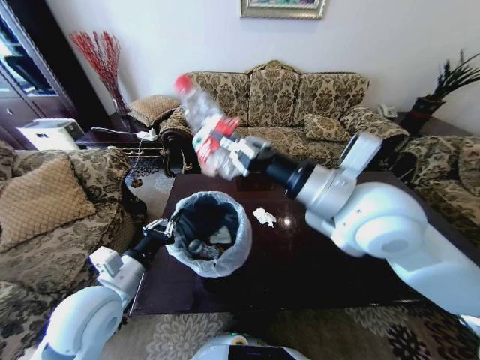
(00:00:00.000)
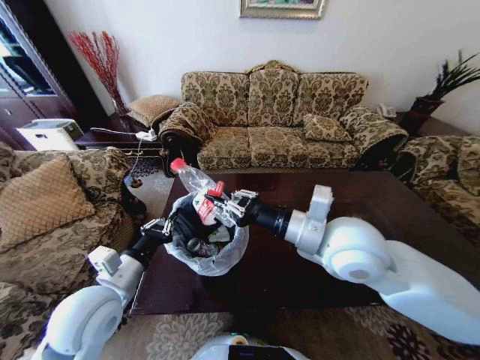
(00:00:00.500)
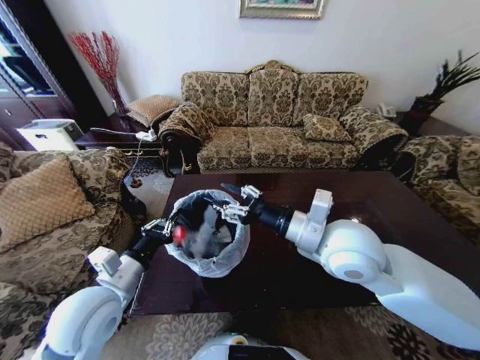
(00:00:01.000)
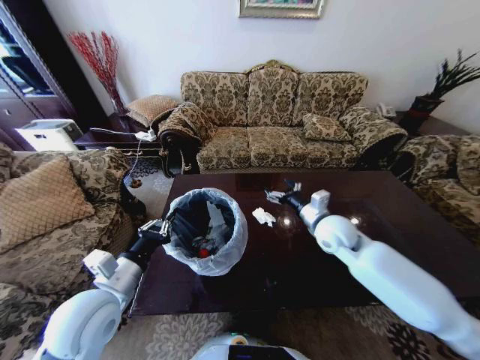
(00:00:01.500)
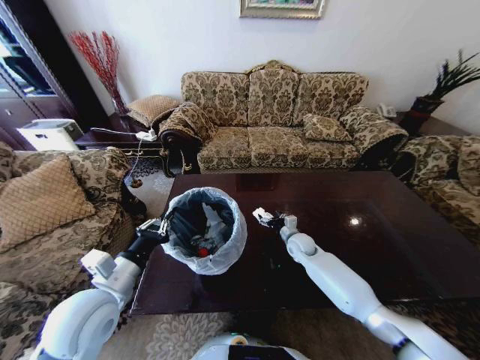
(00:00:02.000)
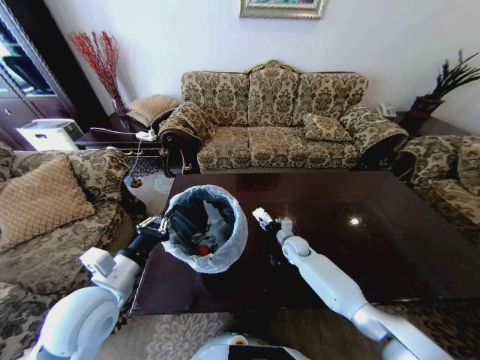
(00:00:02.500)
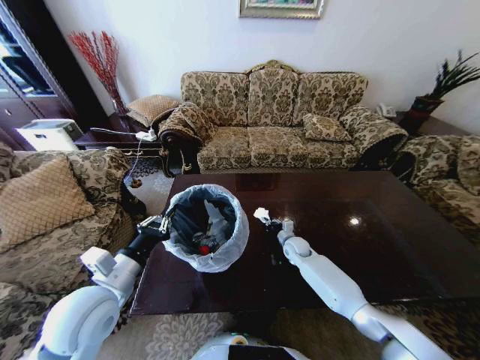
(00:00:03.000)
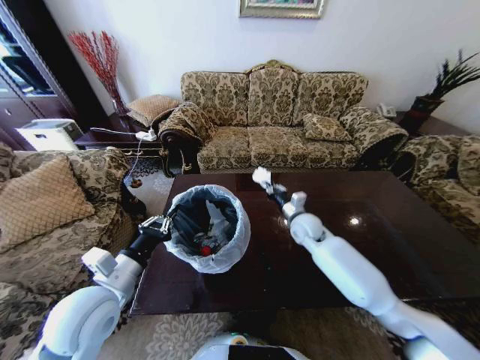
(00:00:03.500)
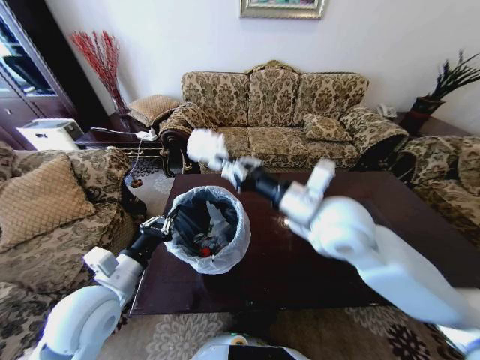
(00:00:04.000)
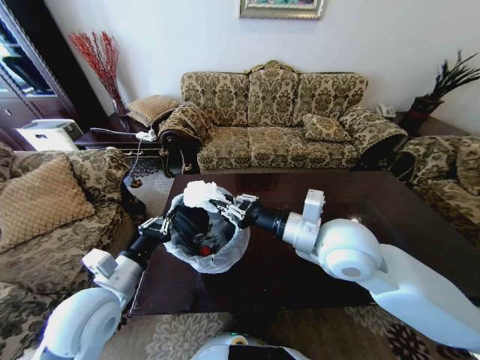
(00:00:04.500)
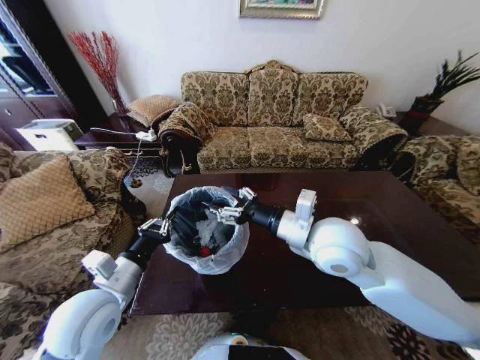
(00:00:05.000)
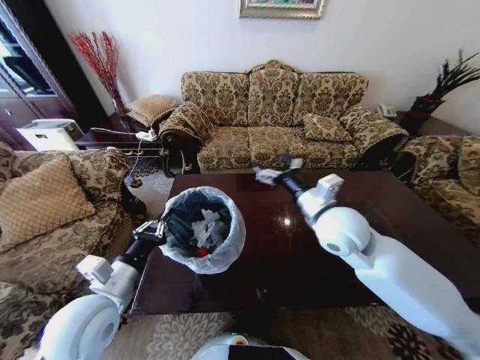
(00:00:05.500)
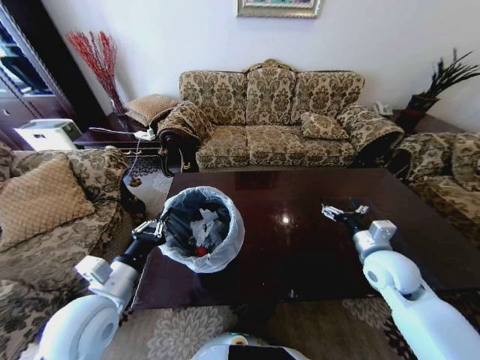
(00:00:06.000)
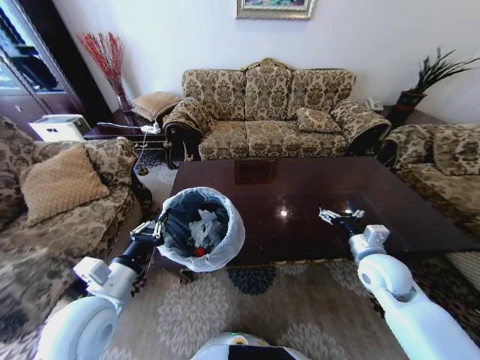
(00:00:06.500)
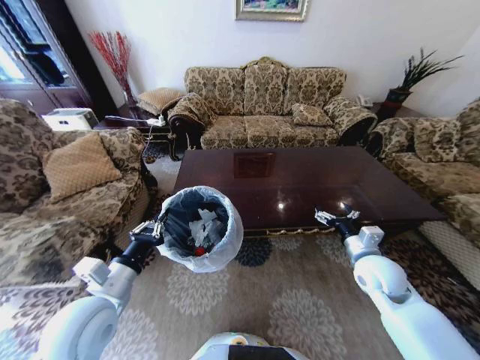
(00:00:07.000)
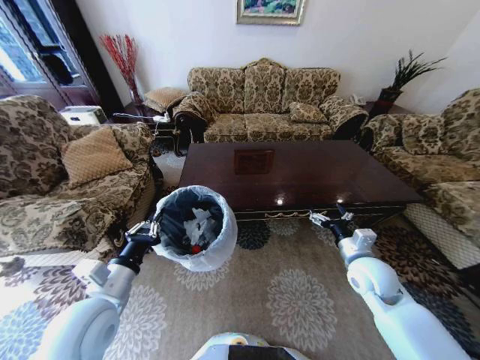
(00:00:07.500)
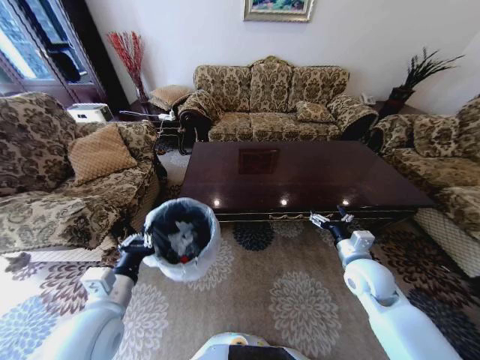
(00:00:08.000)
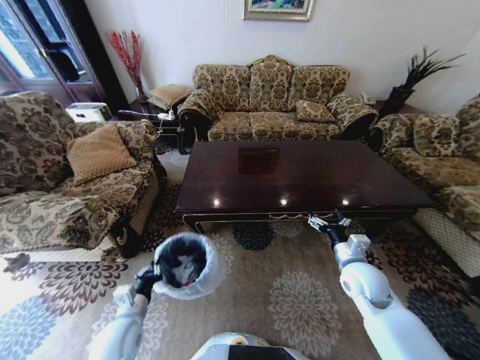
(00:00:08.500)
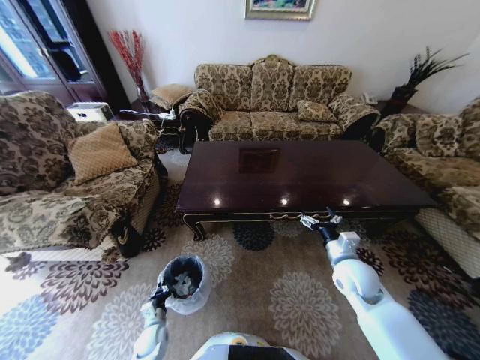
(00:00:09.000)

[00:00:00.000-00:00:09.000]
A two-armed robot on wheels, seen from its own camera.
Task of the whole recording: Move to the front of the table and place the trash on the table into the trash bin.
00:00:00.000 to 00:00:02.000: The right gripper heads downward and forward, covering about 40 cm, and opens its fingers.
00:00:02.000 to 00:00:04.500: The right gripper is displaced upward and backward by roughly 35 cm, and closes up.
00:00:04.500 to 00:00:07.000: The right gripper heads to the right and downward, covering approximately 25 cm, and opens up.
00:00:07.000 to 00:00:09.000: The left gripper moves downward, some 40 cm; the right gripper moves roughly 5 cm.

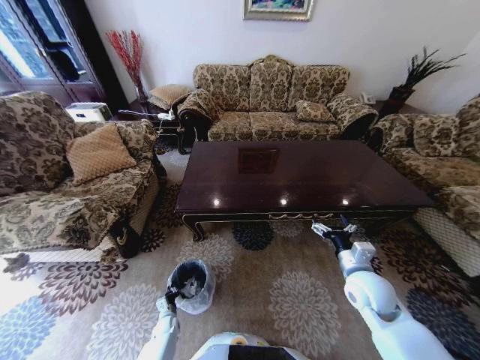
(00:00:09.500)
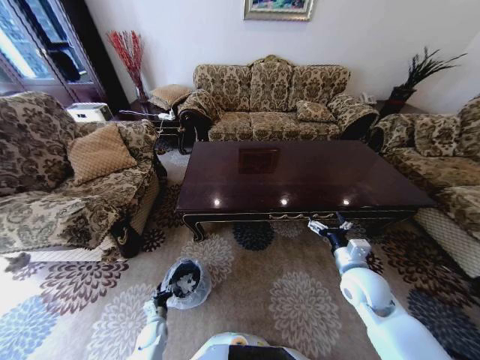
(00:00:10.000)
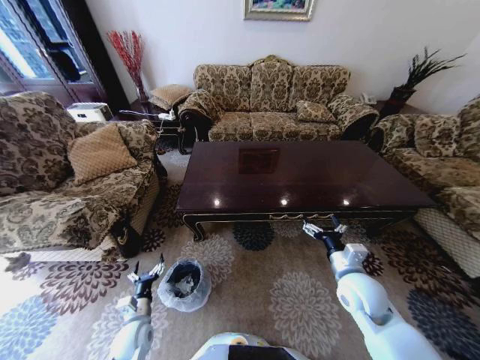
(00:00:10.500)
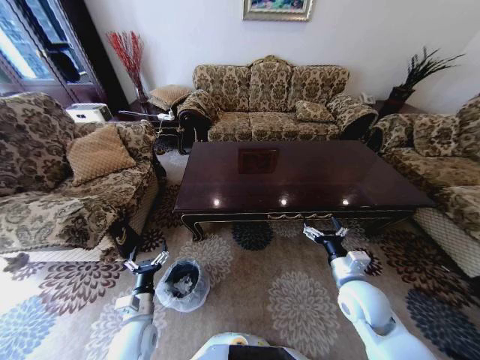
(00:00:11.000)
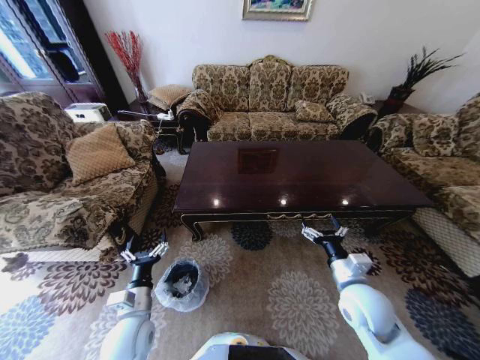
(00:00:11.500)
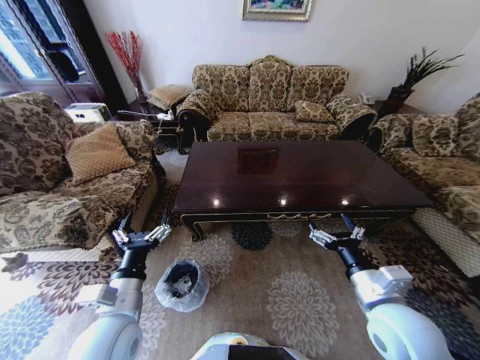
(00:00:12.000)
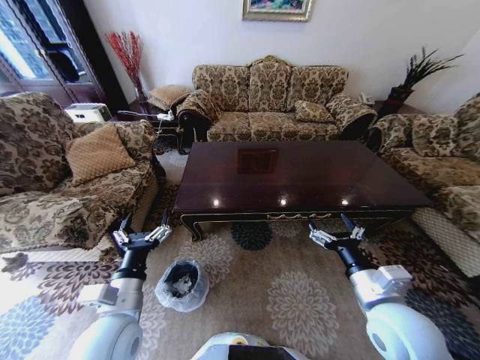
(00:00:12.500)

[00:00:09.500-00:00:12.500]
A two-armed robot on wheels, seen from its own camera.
Task of the whole recording: Move to the front of the table and place the trash on the table into the trash bin.
00:00:09.500 to 00:00:11.000: The left gripper heads upward, covering about 30 cm, and opens up.
00:00:11.000 to 00:00:12.500: The right gripper shifts about 10 cm upward and backward. The left gripper is displaced upward by approximately 15 cm.
